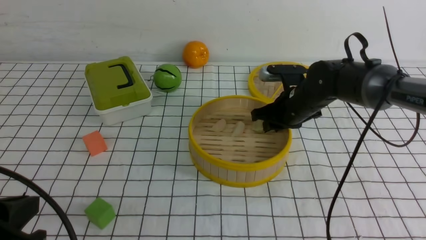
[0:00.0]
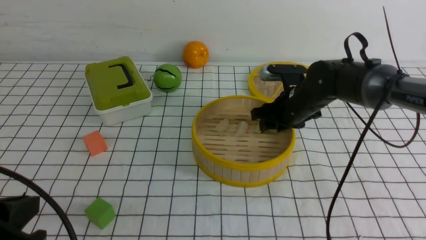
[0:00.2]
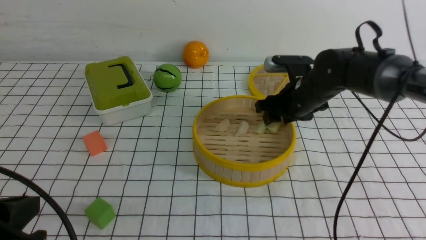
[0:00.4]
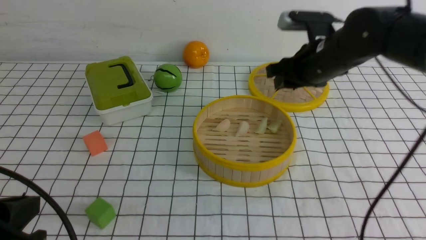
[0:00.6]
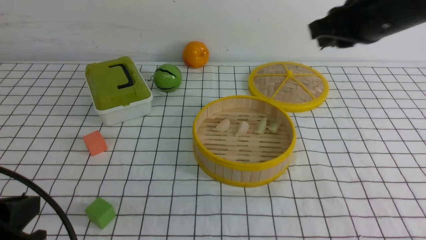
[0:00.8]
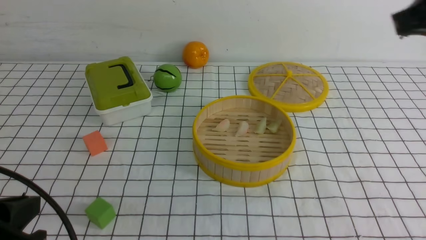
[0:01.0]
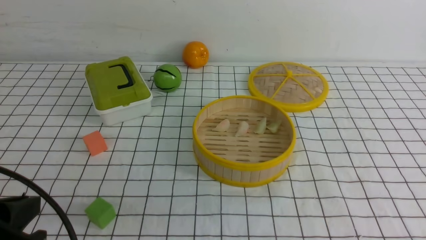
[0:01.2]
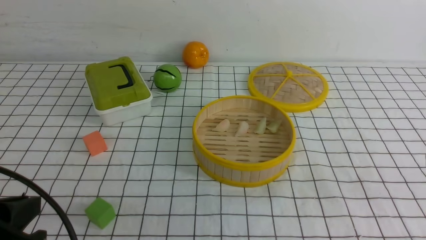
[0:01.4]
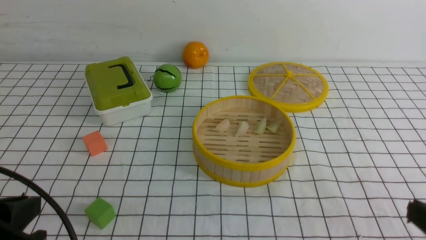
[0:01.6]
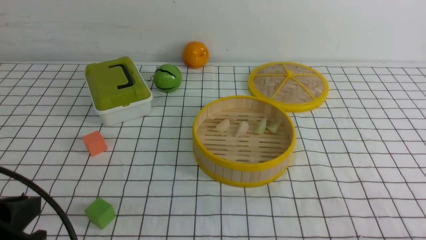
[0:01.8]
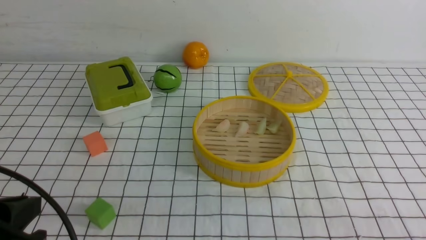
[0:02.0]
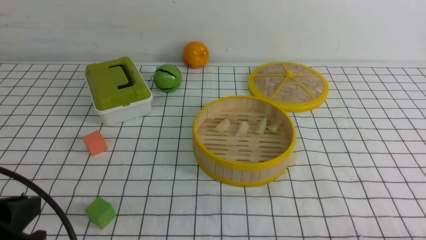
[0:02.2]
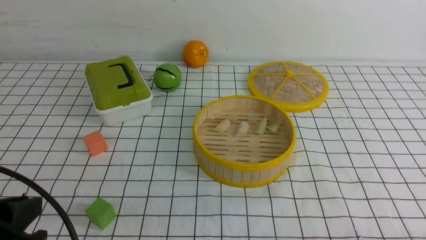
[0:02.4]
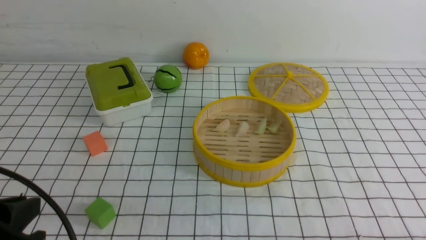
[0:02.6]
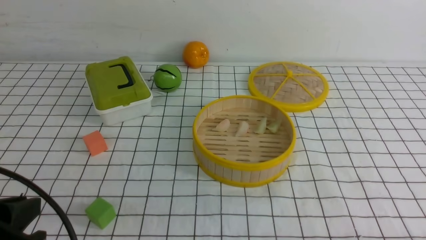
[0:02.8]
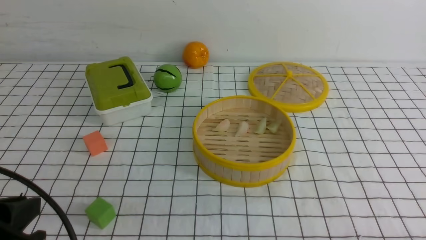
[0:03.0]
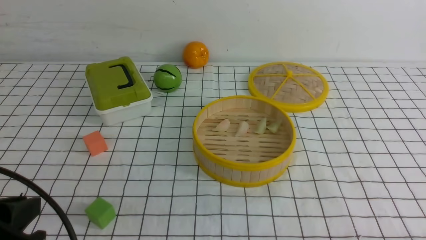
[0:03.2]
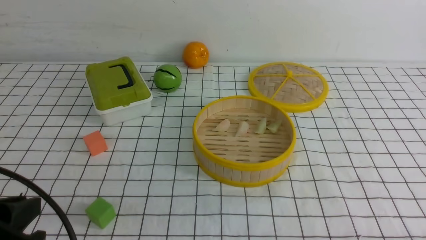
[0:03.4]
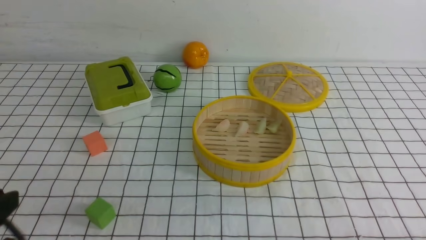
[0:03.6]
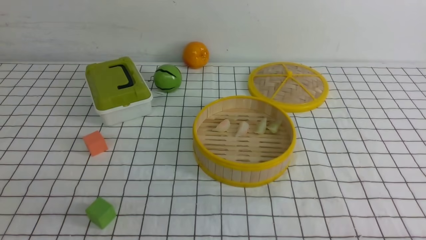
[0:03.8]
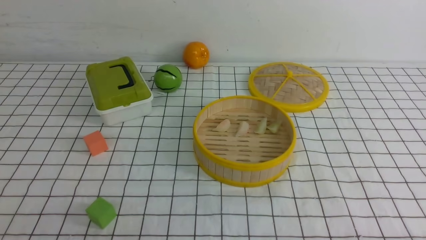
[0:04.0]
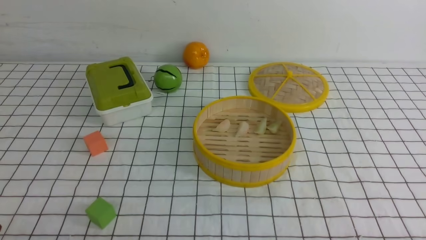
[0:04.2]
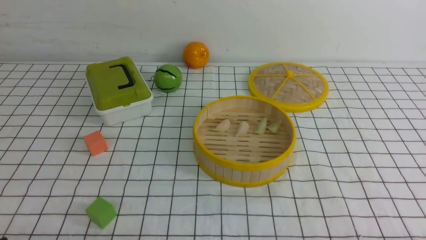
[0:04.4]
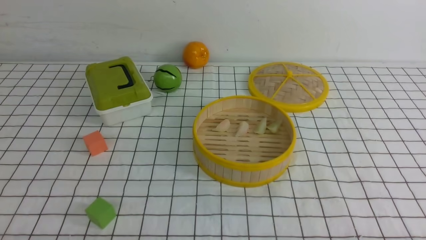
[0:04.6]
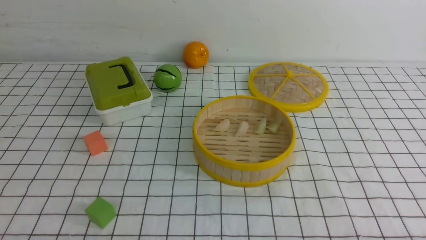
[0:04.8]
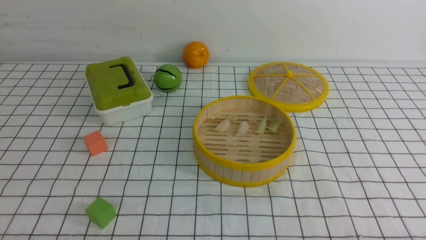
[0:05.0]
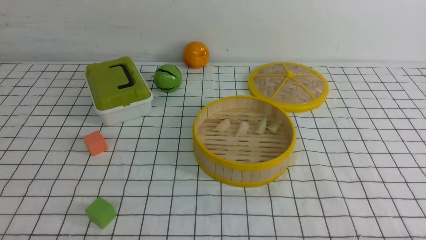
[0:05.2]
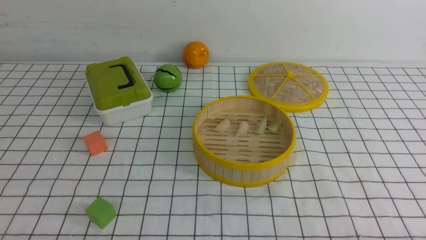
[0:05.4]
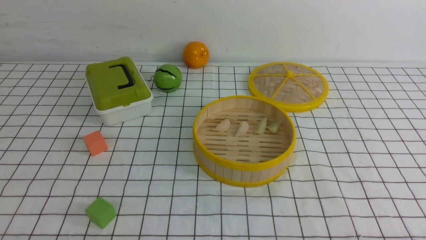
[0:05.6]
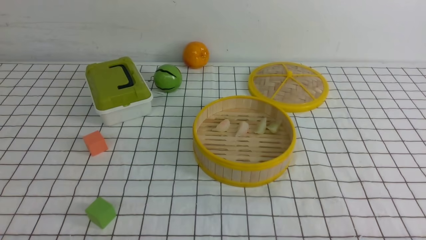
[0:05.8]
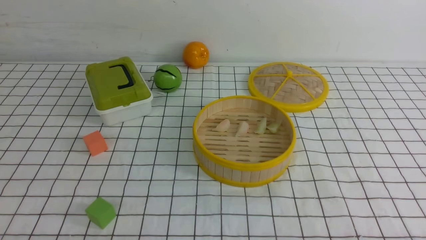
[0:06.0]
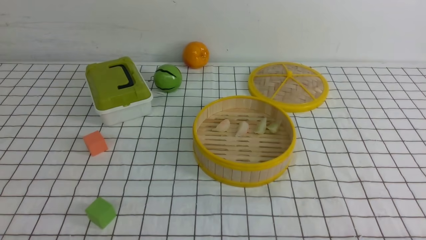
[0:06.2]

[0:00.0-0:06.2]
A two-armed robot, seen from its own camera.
Task of the whole recording: put the dumplings into the steamer on the table with the white tablecloth.
0:00.0 to 0:01.6: The right gripper moves backward, some 35 cm, and closes up.
0:03.2 to 0:04.6: The left gripper moves downward and backward, roughly 10 cm.
0:04.6 to 0:06.2: Both grippers stay put.

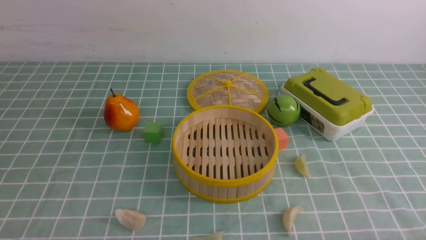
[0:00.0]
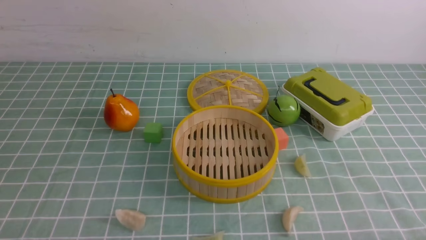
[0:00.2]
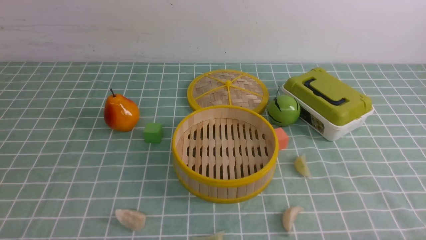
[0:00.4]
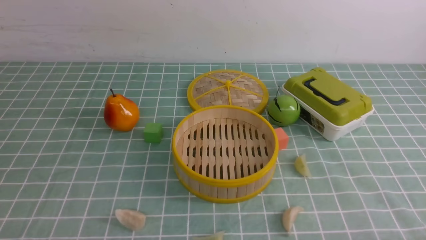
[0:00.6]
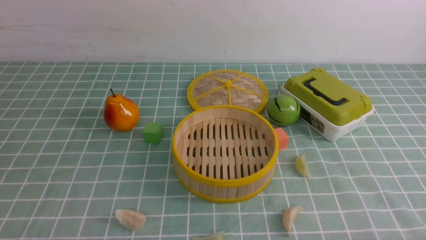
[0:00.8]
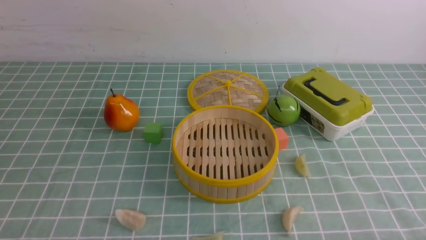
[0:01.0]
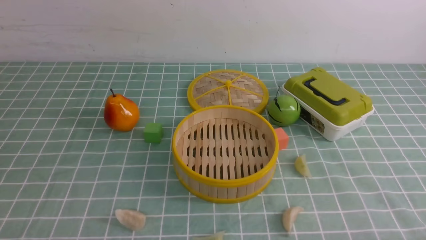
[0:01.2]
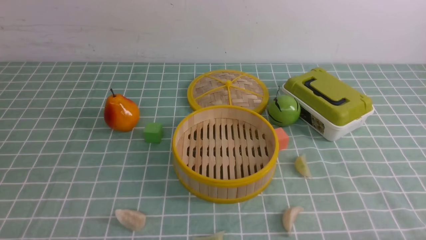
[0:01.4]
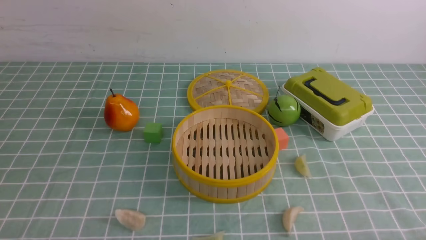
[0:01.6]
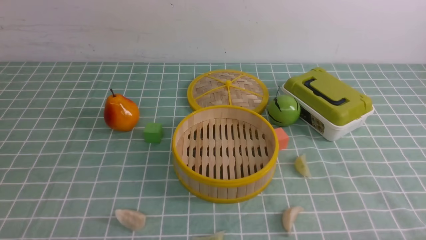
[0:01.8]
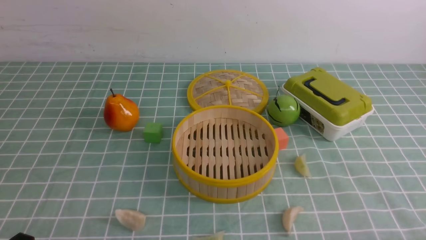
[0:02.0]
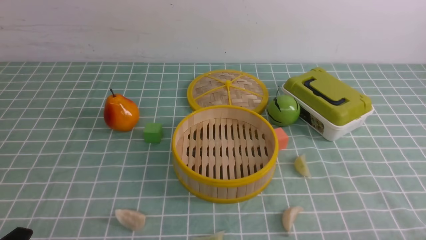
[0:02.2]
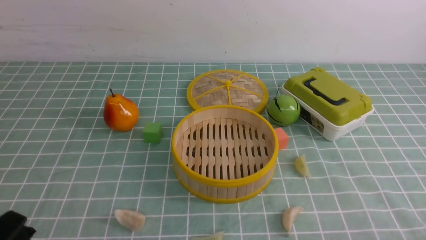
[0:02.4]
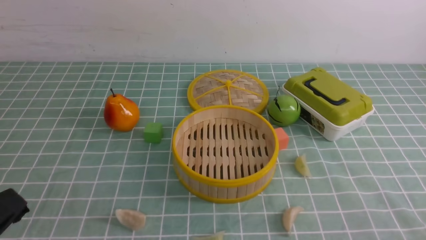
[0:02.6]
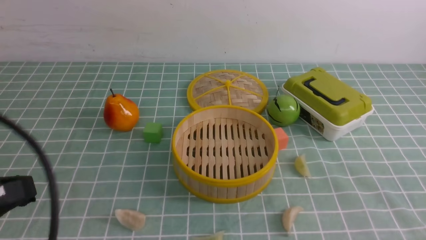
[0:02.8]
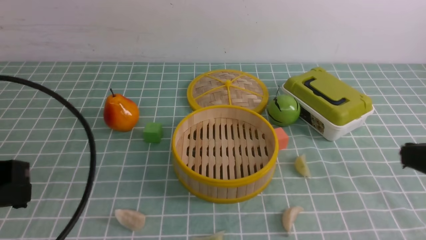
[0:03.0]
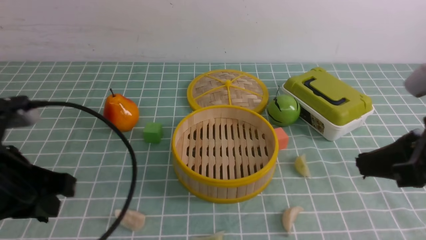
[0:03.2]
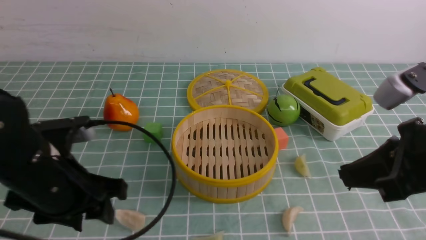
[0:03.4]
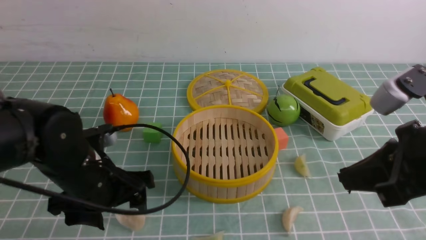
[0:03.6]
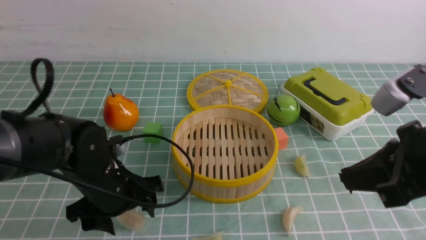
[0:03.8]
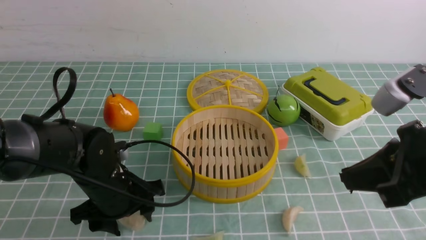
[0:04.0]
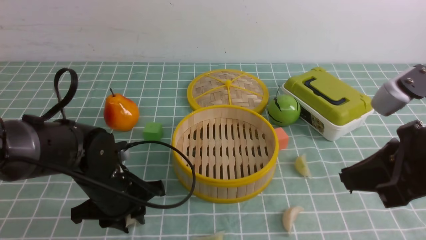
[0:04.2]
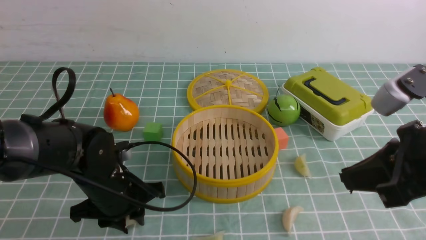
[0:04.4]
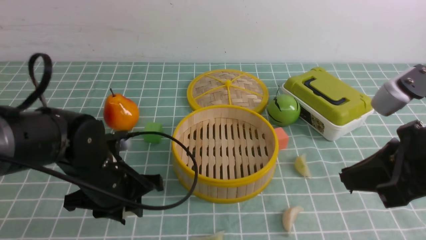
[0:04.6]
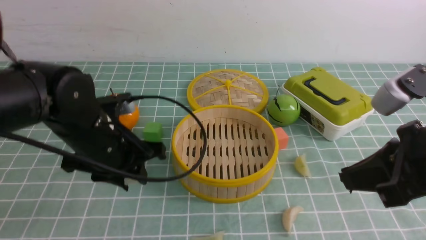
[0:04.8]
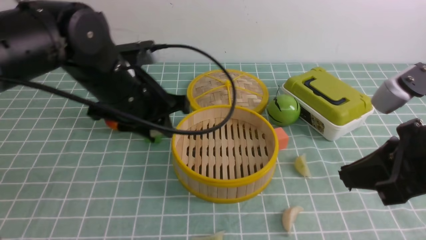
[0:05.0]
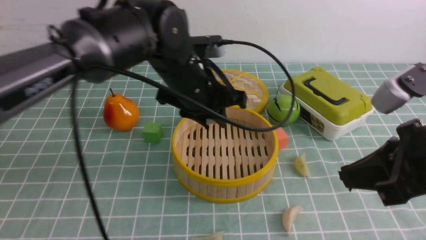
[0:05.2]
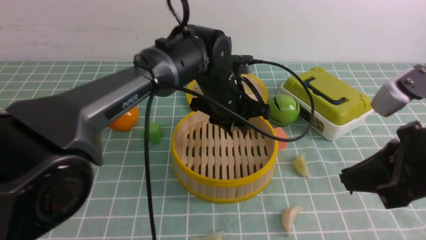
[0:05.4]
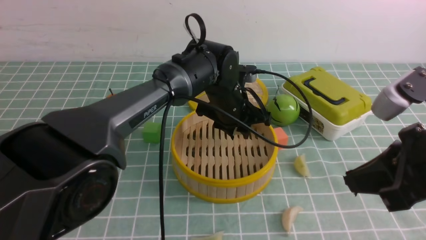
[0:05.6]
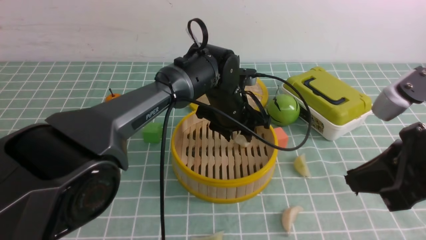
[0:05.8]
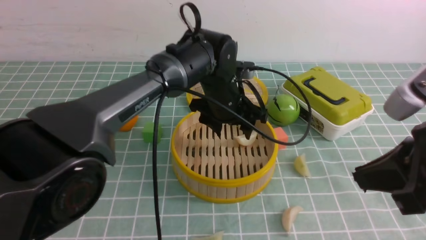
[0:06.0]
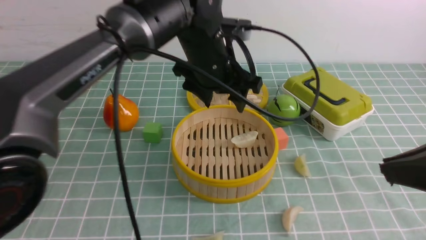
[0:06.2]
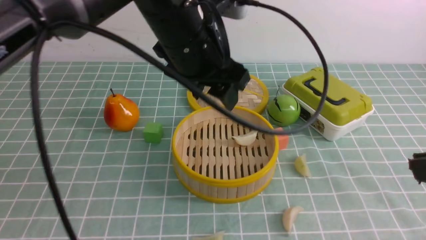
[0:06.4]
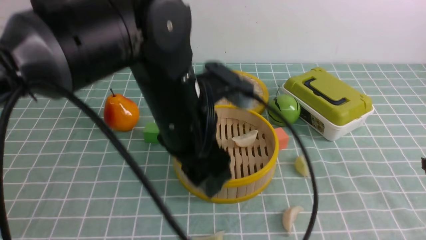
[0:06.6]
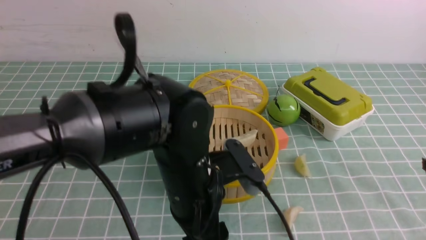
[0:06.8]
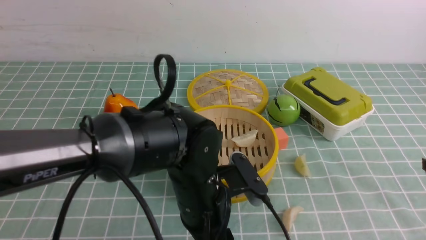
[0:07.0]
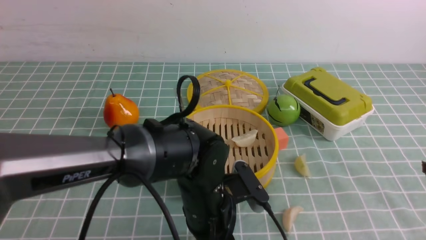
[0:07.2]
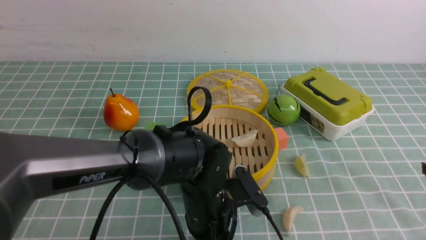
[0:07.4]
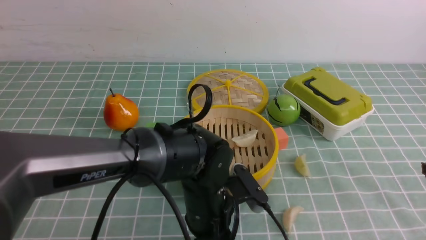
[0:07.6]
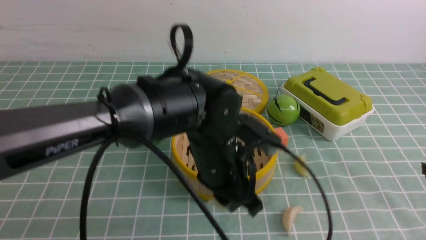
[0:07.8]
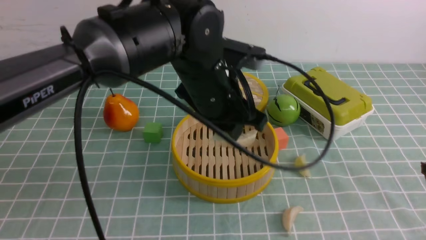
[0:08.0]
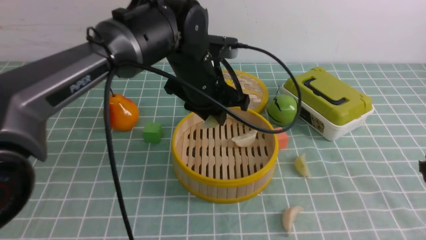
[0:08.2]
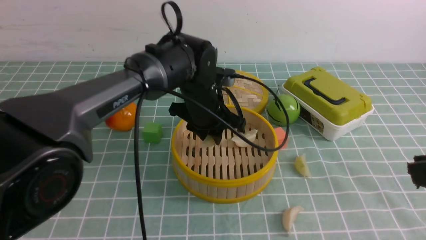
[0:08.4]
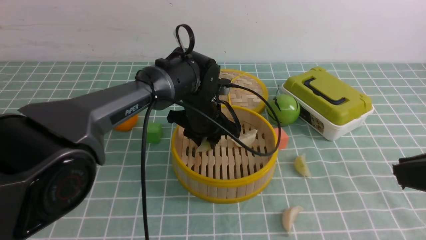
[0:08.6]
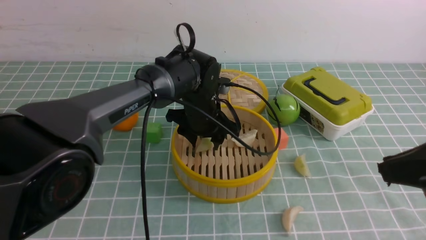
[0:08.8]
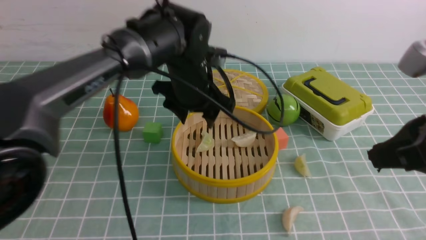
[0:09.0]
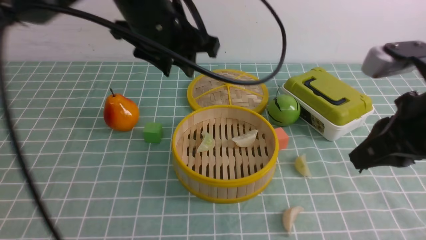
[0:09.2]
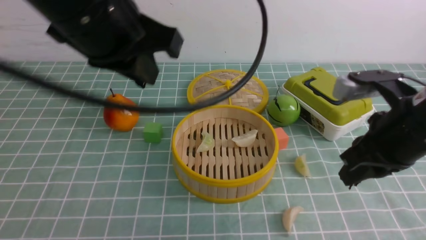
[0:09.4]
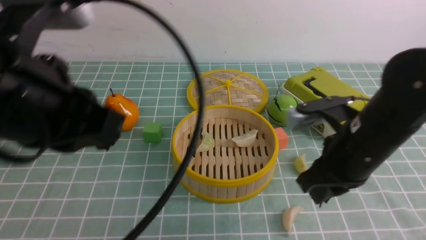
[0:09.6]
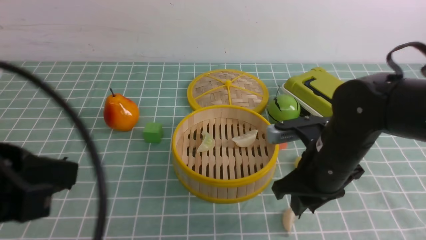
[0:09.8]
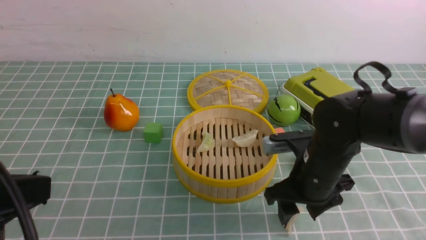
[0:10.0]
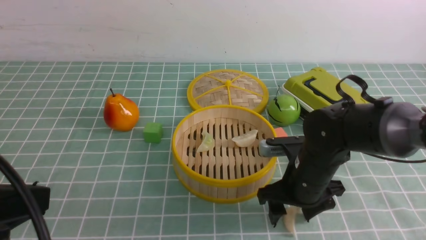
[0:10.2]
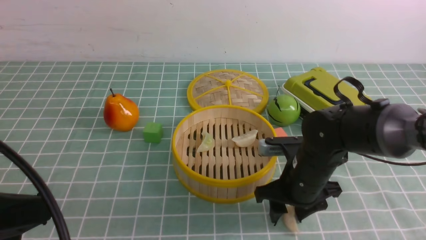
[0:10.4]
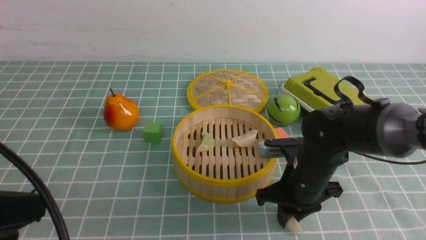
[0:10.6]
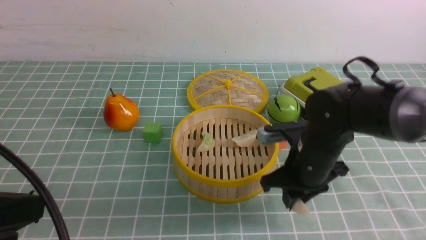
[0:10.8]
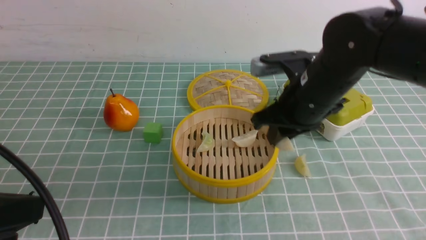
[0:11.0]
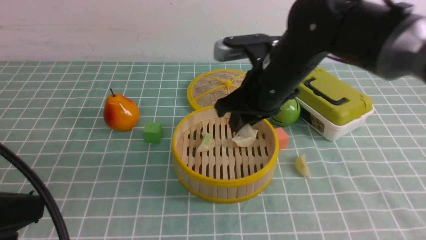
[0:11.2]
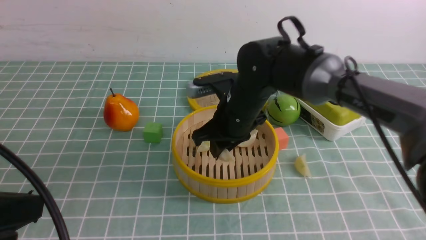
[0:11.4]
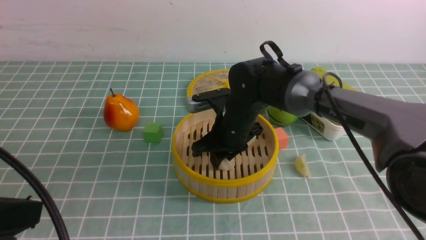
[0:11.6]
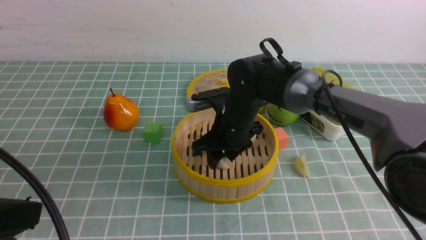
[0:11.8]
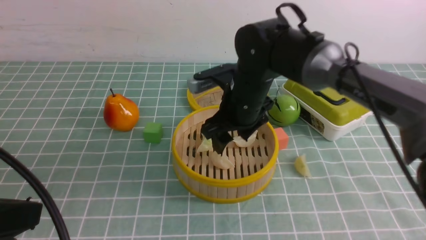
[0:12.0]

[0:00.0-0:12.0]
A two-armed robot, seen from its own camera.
Task of the whole recording: put the dumplings into the steamer on the table with the blue tablecloth.
Step, 0:00.0 to 0:04.6: use the left arm to grab a dumpling.
Step, 0:05.0 to 0:06.0: use the left arm to put the dumpling into the steamer.
Step, 0:06.2 to 0:08.0: use the left arm to grab a dumpling.
Step, 0:08.2 to 0:09.0: use the left arm to put the dumpling into the steamer.
Step, 0:09.2 to 0:11.0: use the right arm to grab a dumpling.
0:01.6 to 0:03.0: The two grippers go about 20 cm upward and forward. The right gripper closes up. Meanwhile the left gripper closes up.
0:03.0 to 0:04.4: The left gripper goes approximately 20 cm downward, forward and to the right, and opens its fingers. The right gripper shifts by approximately 5 cm.
0:04.4 to 0:06.0: The left gripper is displaced to the right, forward and upward by roughly 25 cm, and opens its fingers.
0:06.0 to 0:07.6: The right gripper is displaced backward by about 5 cm; the left gripper is displaced backward and downward by approximately 15 cm, and closes its fingers.
0:07.6 to 0:09.0: The right gripper goes some 10 cm forward; the left gripper travels upward and forward by about 15 cm.
0:09.0 to 0:10.4: The left gripper travels backward and to the left by roughly 35 cm, and closes. The right gripper goes approximately 25 cm downward, forward and to the left, and opens up.
0:10.4 to 0:12.0: The right gripper swings up and down, some 10 cm each way, with 2 reversals, and closes and opens again.
